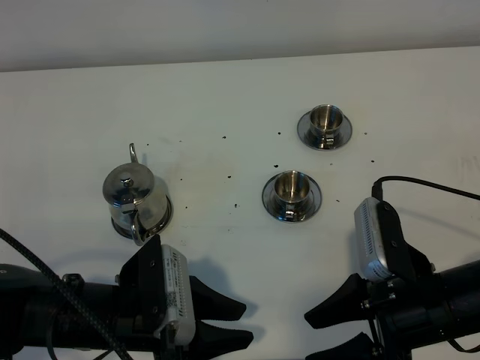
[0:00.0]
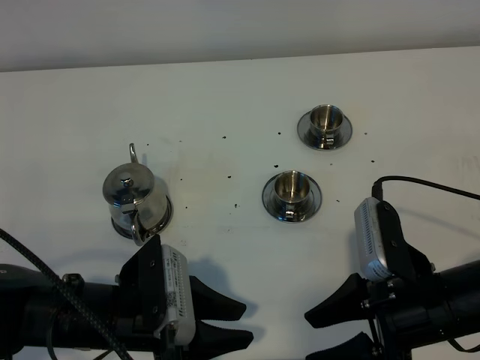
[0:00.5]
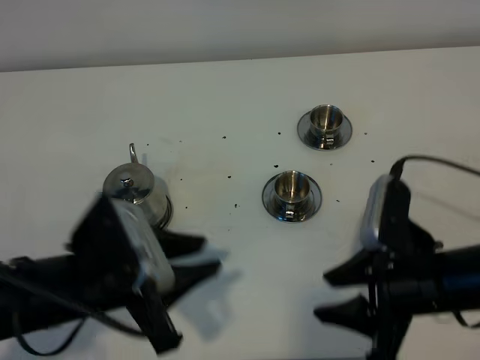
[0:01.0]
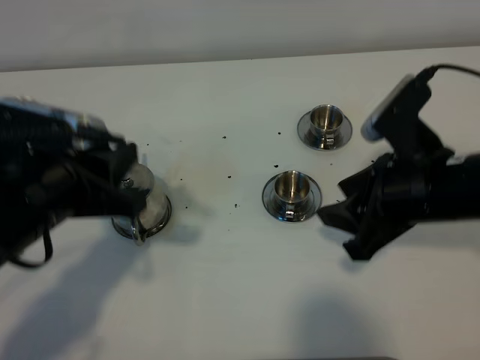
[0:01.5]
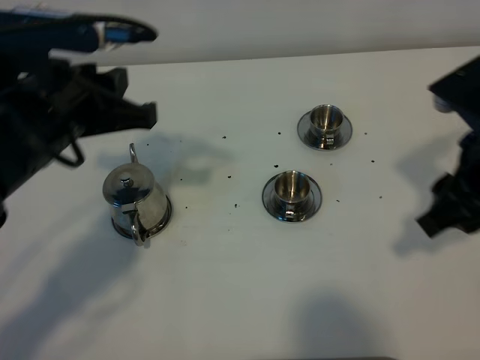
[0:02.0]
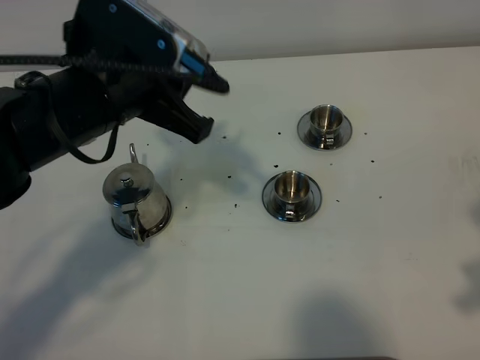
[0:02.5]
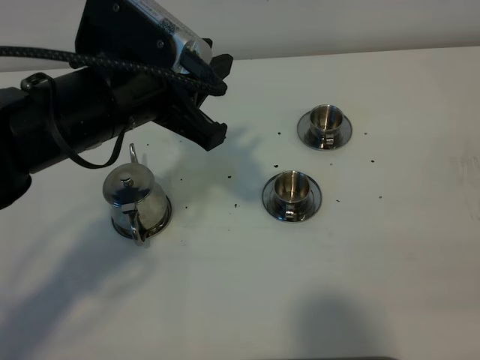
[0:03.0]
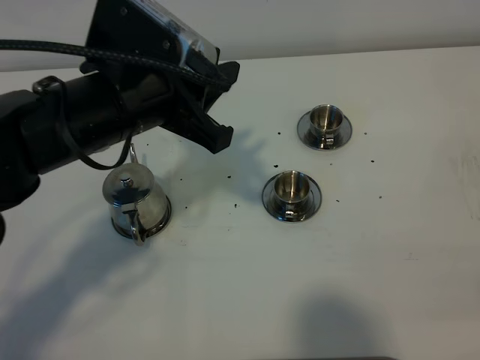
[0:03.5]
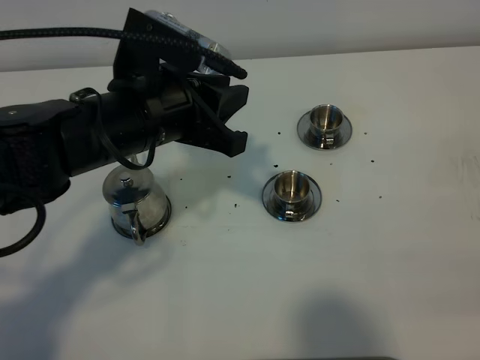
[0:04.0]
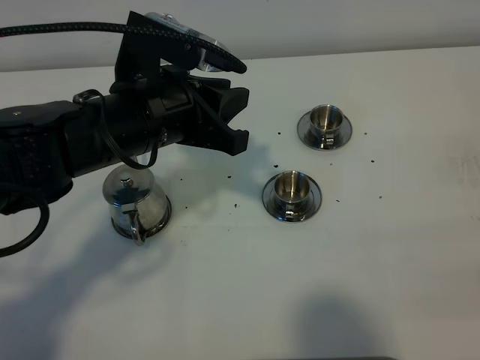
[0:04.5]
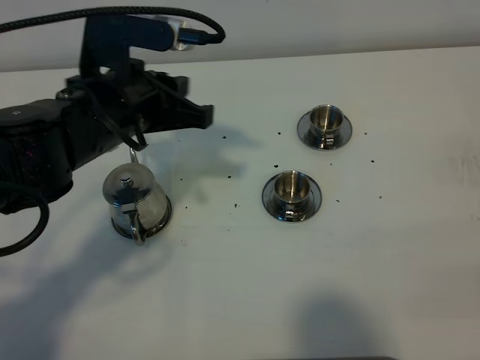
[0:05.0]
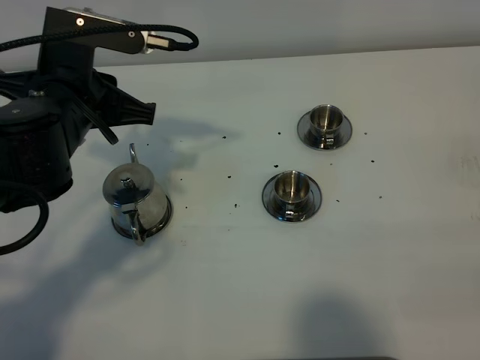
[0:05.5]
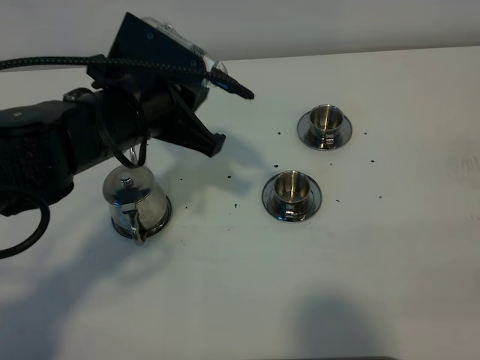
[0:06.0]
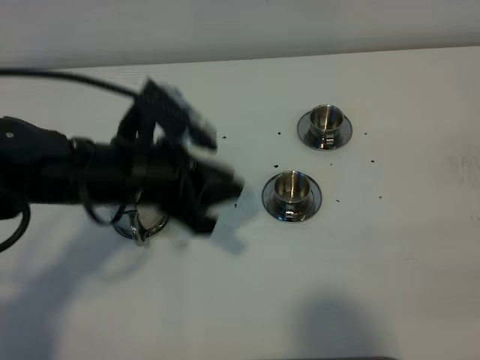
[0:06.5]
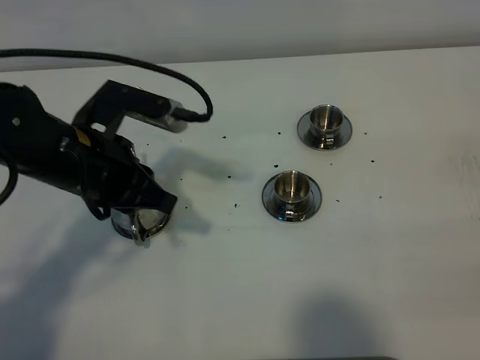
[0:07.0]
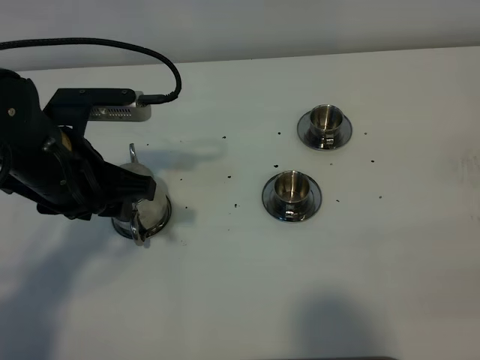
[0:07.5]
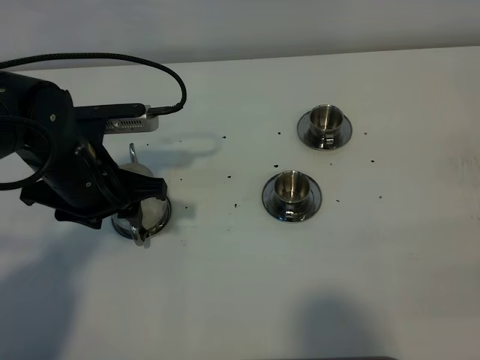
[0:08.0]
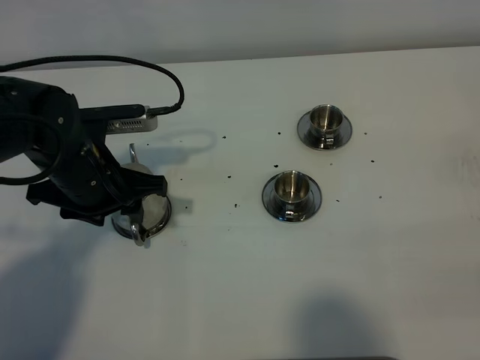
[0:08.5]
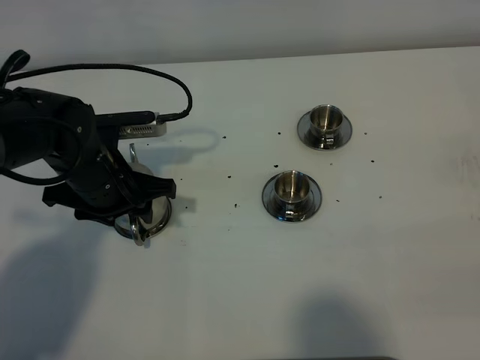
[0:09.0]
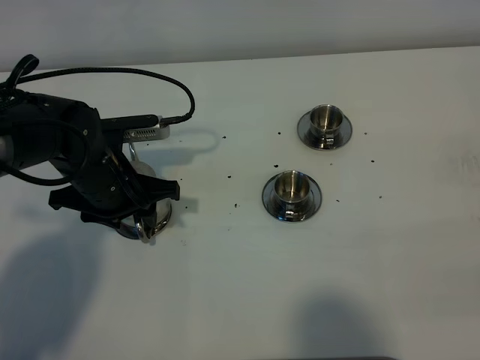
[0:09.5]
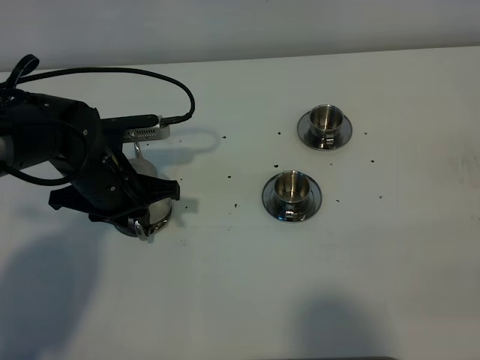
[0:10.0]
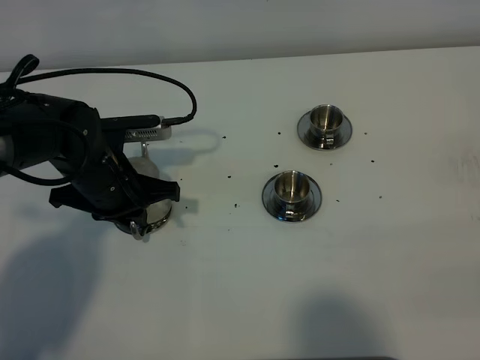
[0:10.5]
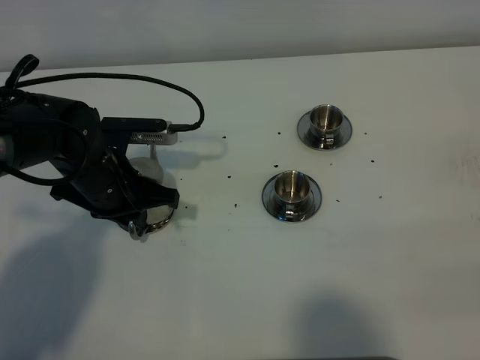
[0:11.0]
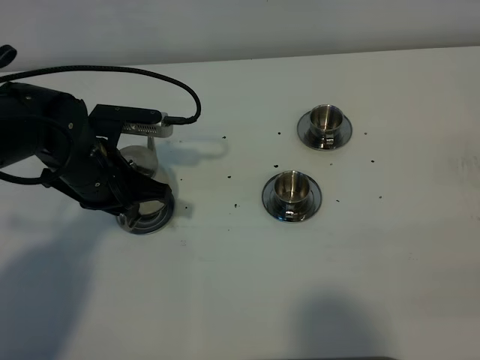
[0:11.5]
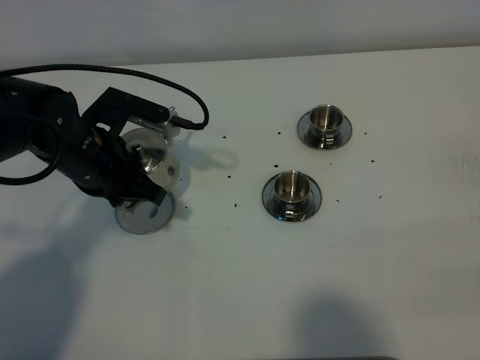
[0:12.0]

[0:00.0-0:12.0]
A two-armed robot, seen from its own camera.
Task of the whole recording: grasp the stainless steel teapot and pour the tea into the two stainless steel teacups one by one, put the stainless steel teapot back in its original place.
Step, 0.0 to 11.0 s: Pick up the teapot with the left gripper.
0.0 to 2.0 s: Both grippers travel together upward and forward, some 15 cm.
2.0 to 4.0 s: The left gripper shifts approximately 5 cm to the right. Meanwhile the right gripper travels backward and to the right by roughly 20 cm.
6.0 to 8.0 s: The left gripper is displaced downward by some 5 cm, and opens.
8.0 to 10.0 s: The left gripper is displaced downward by about 5 cm, and closes its fingers.

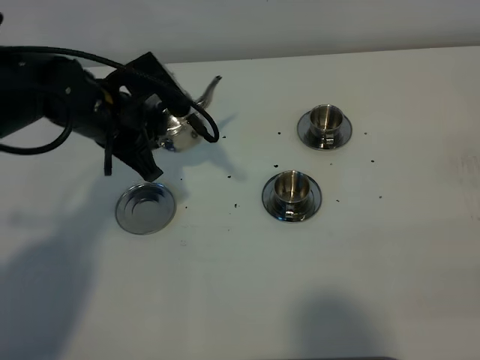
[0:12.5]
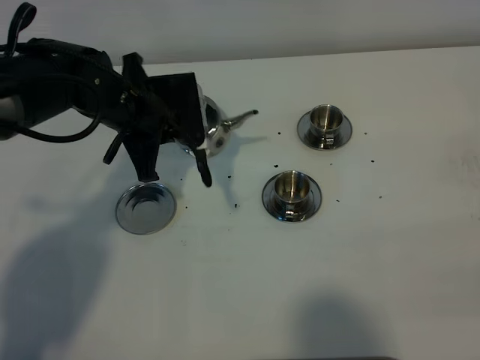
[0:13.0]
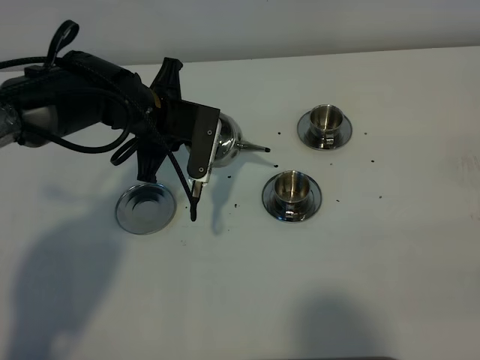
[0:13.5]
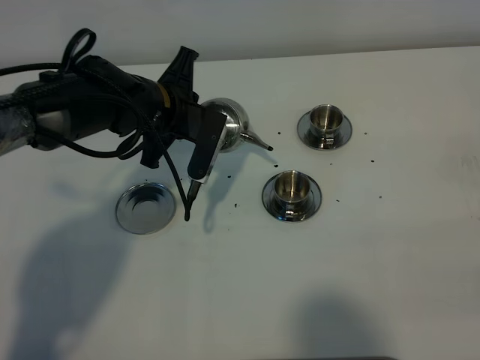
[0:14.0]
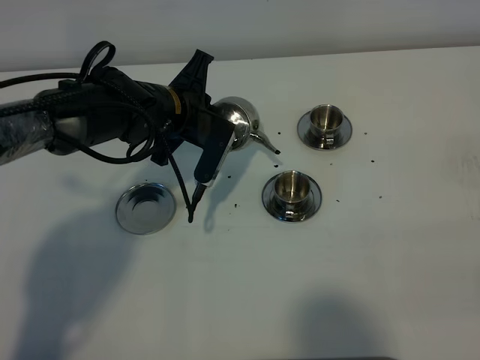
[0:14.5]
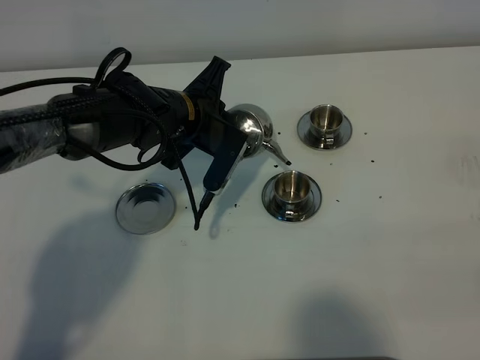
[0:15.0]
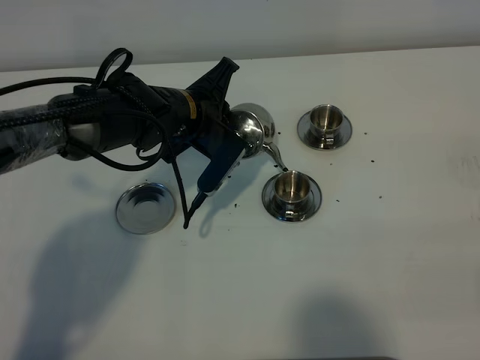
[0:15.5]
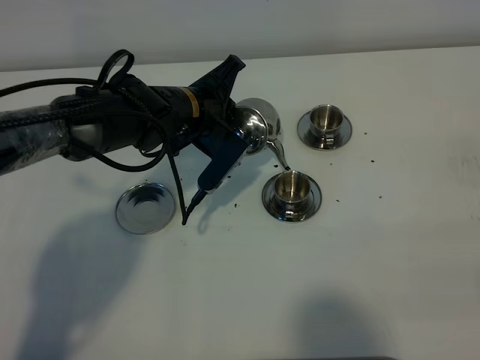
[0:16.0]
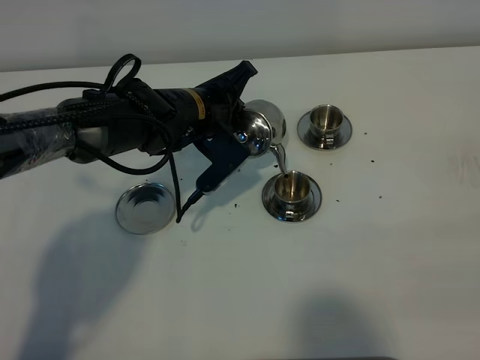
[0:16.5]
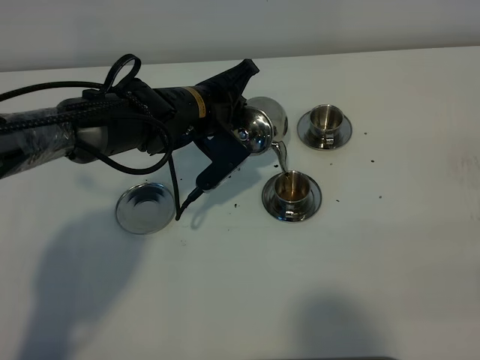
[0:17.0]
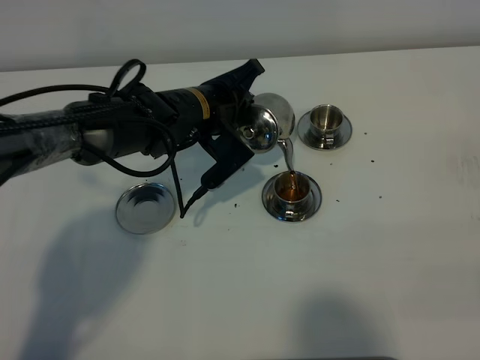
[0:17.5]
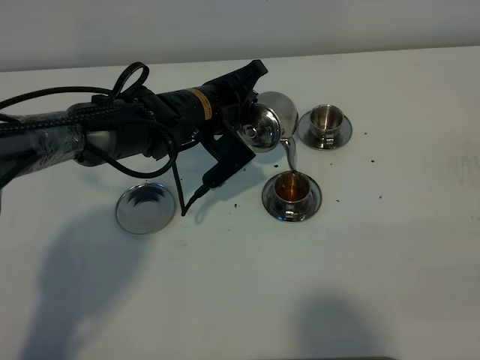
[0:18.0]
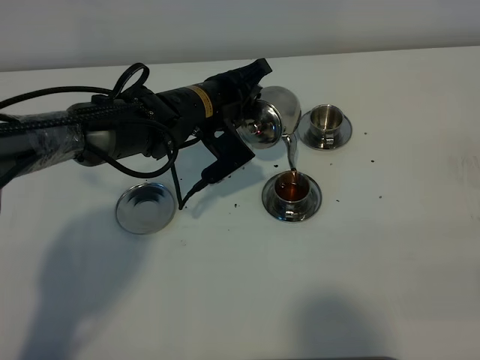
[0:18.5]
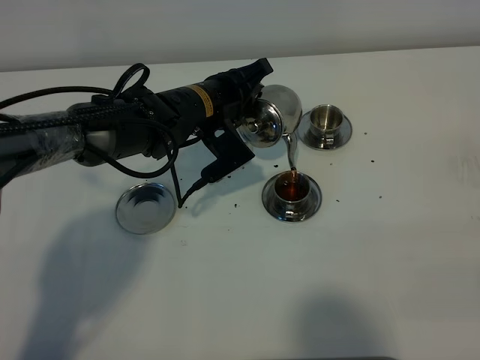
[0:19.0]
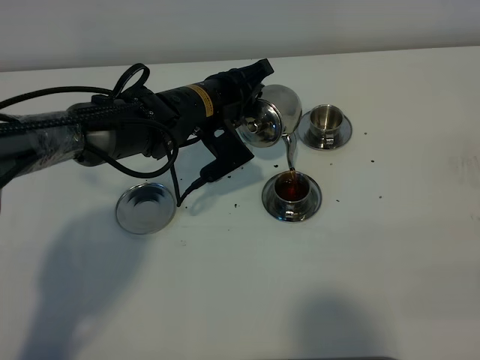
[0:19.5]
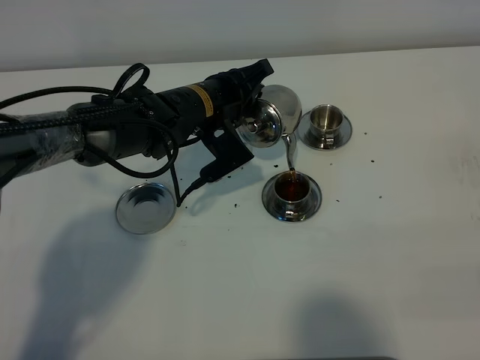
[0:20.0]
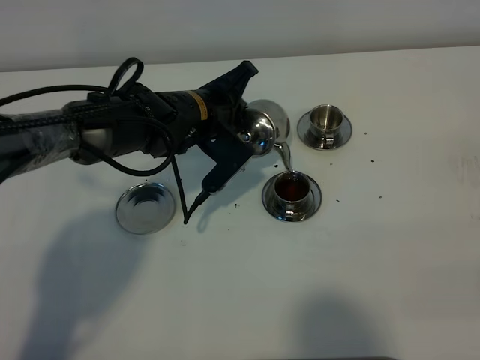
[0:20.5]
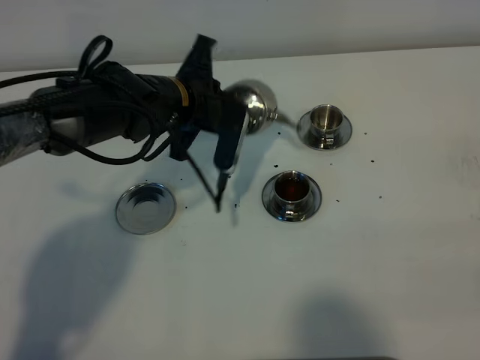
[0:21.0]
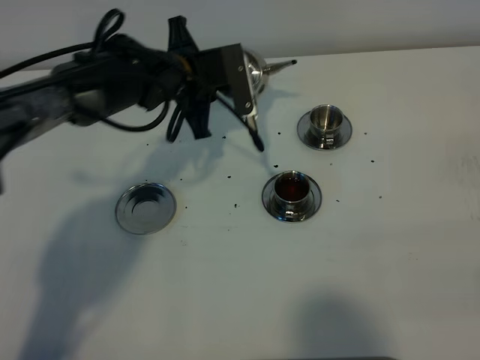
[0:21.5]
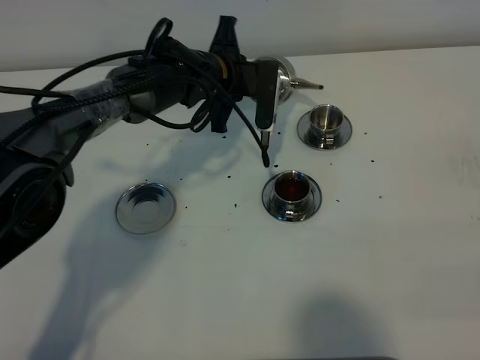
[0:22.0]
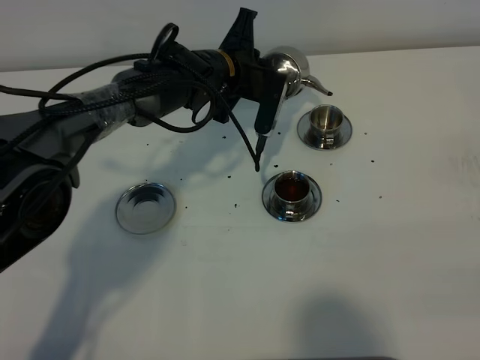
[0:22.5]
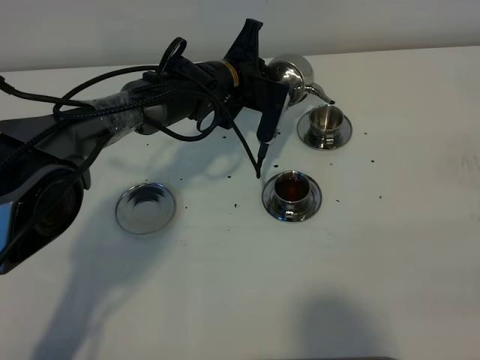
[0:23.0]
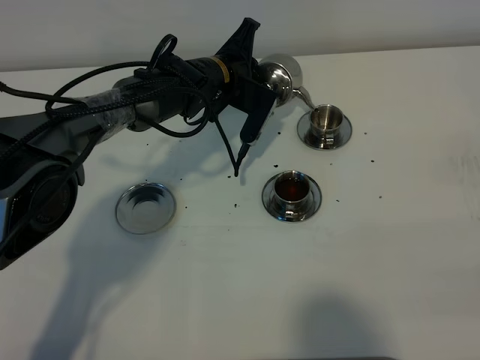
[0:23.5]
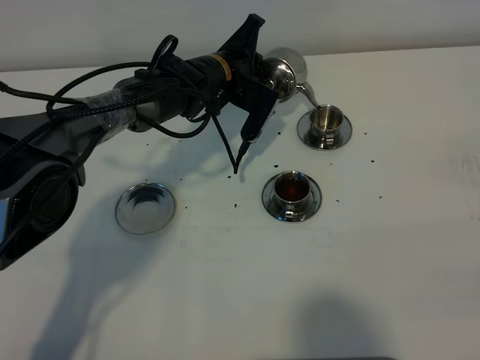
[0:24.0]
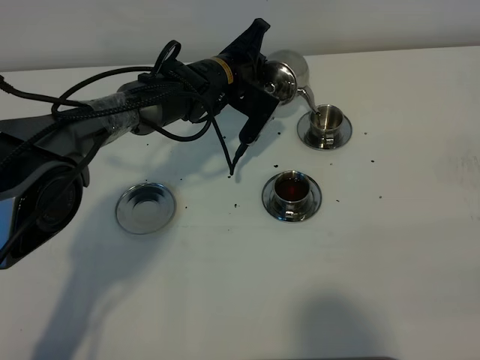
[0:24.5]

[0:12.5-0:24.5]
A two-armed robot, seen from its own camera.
Task of the whole recording: grasp the stainless steel teapot and pour the tea into the two stainless steel teacups one by one, put the stainless steel teapot back in its original place.
12.5 to 14.5 s: The left gripper travels to the right by approximately 5 cm.
16.5 to 20.5 s: The grippers move only a little.
20.5 to 22.5 s: The left gripper moves forward, about 10 cm.
22.5 to 24.5 s: There are only small adjustments of the grippers.

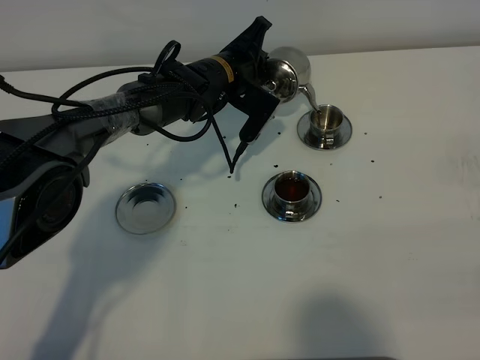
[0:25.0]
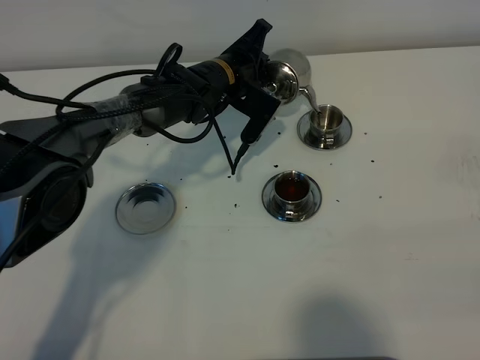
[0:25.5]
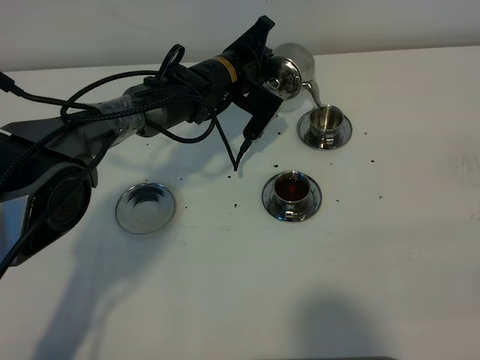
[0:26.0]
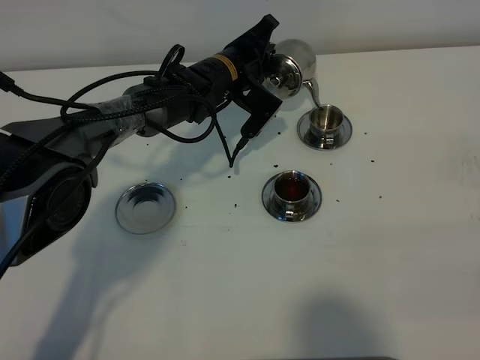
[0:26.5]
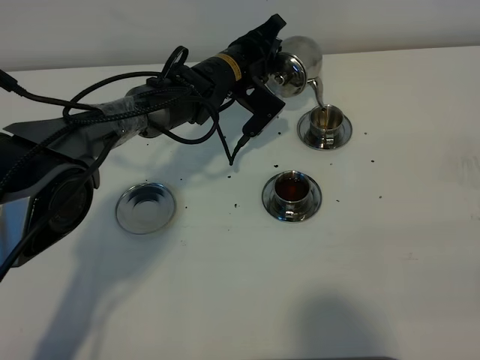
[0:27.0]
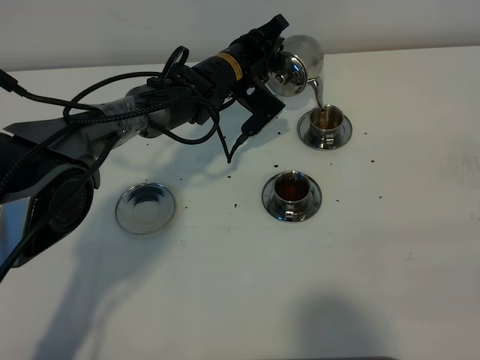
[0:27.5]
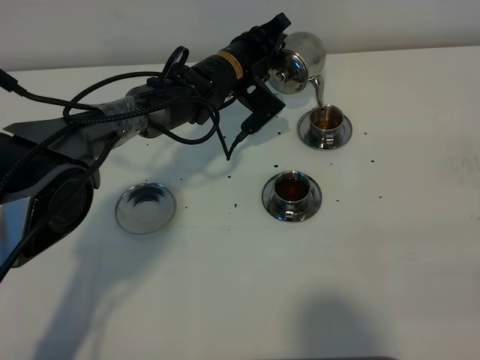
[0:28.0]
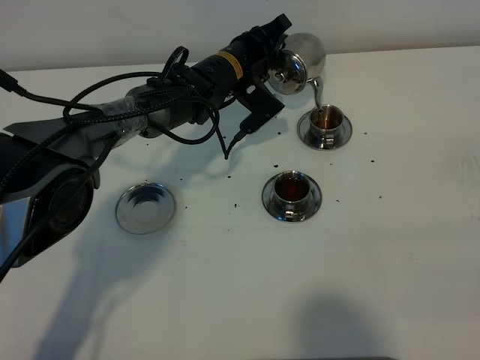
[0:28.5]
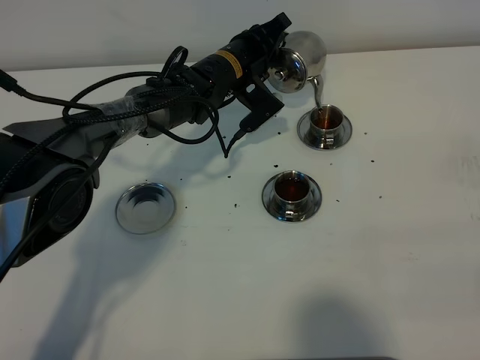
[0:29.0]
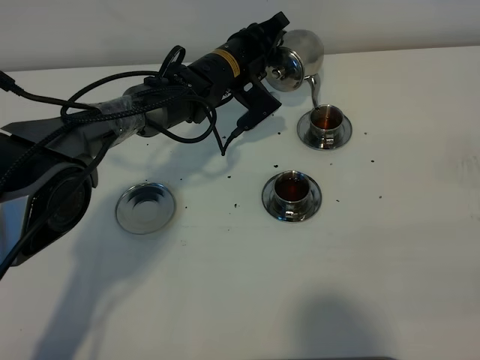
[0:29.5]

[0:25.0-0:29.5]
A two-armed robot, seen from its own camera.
Task of the whole recording: grasp the stainless steel teapot and pour the tea into the two stainless steel teacups one by one, put the stainless steel teapot back in its original place.
25.0 to 27.0 s: The grippers move only a little.
27.0 to 29.5 s: The grippers stay close to where they were, moving slightly.
